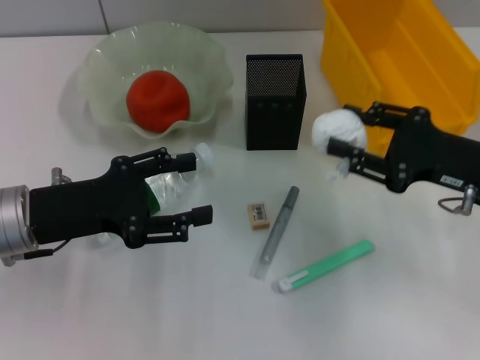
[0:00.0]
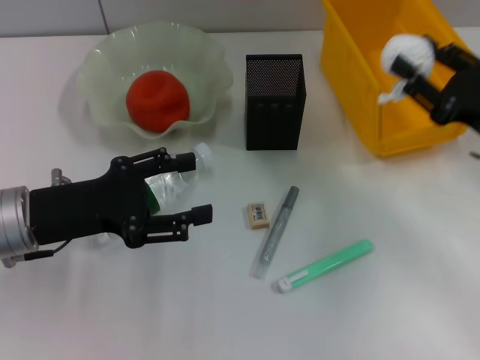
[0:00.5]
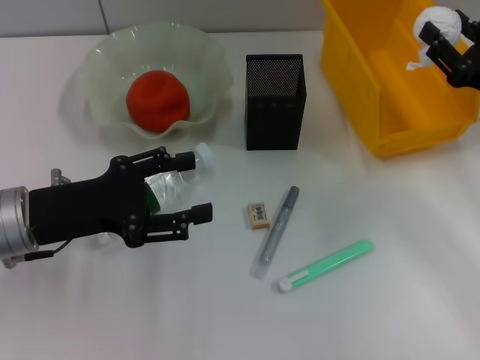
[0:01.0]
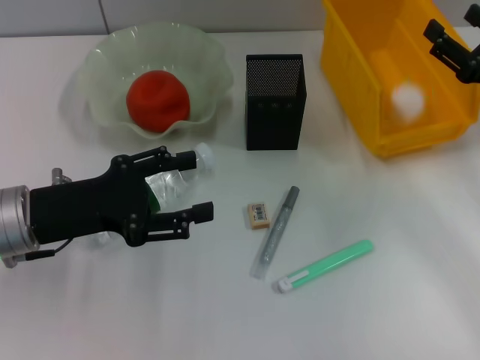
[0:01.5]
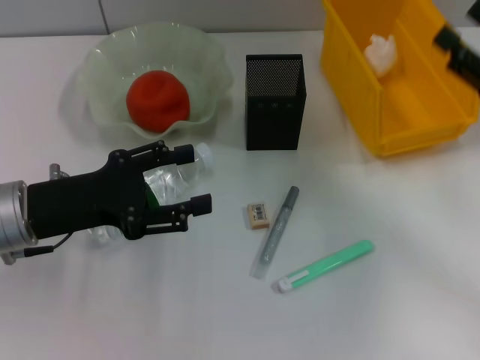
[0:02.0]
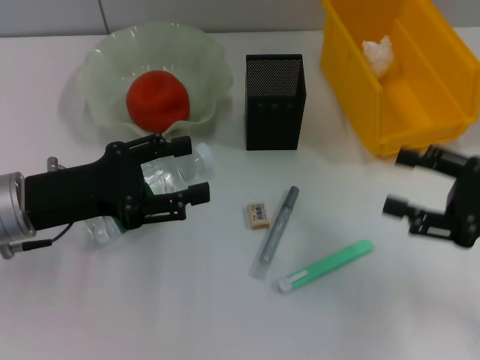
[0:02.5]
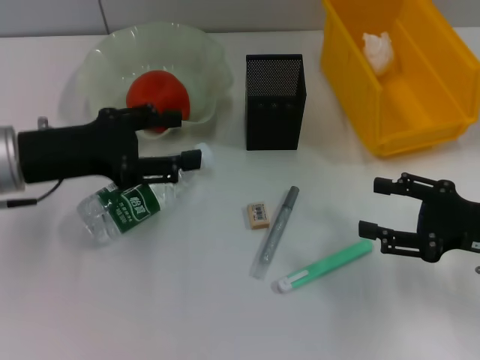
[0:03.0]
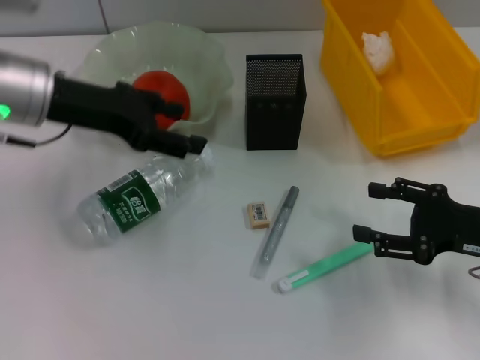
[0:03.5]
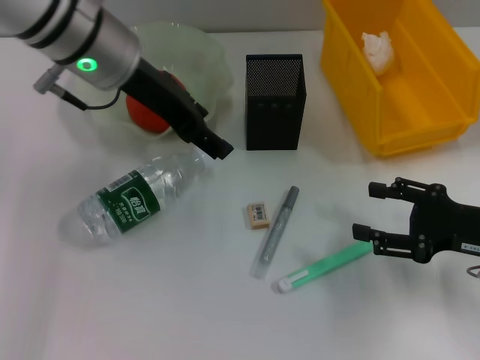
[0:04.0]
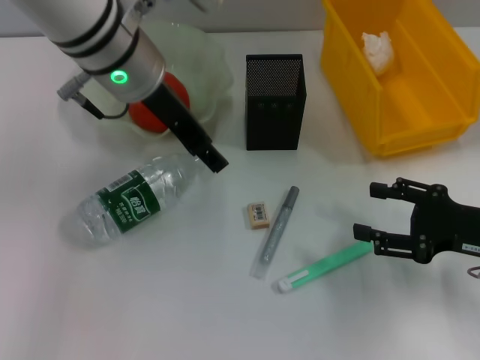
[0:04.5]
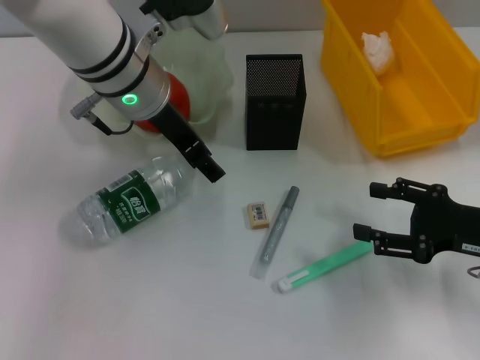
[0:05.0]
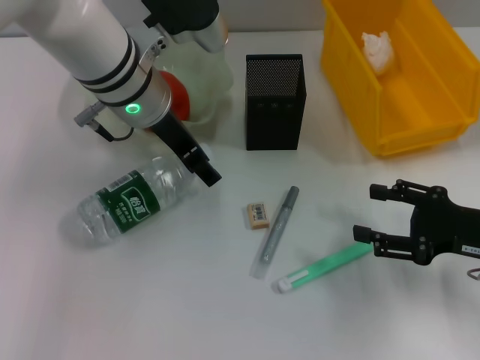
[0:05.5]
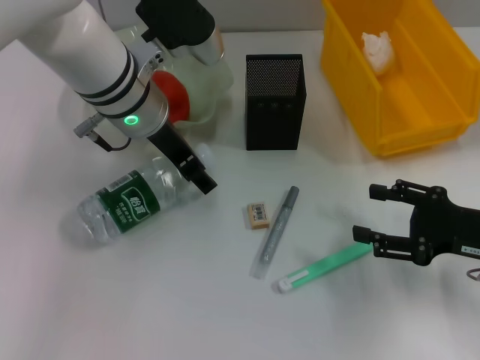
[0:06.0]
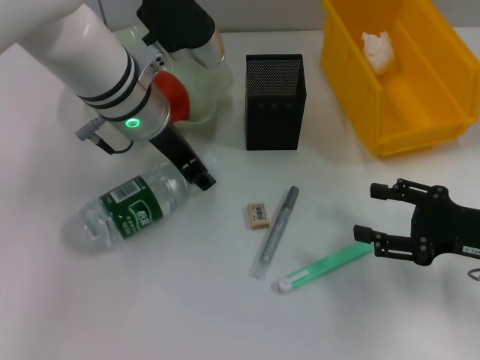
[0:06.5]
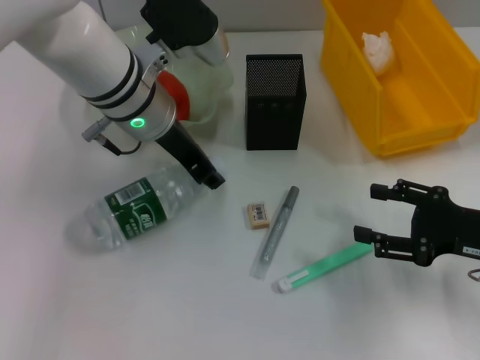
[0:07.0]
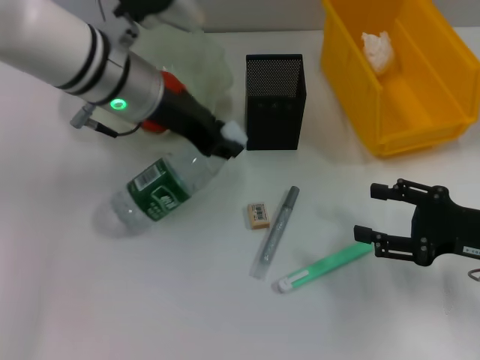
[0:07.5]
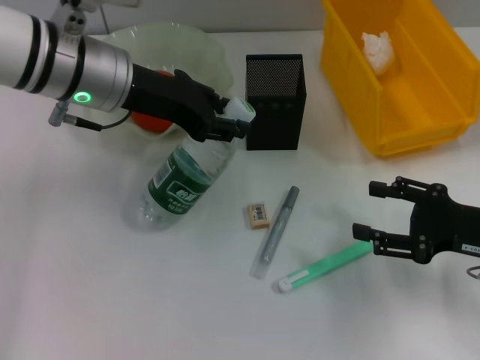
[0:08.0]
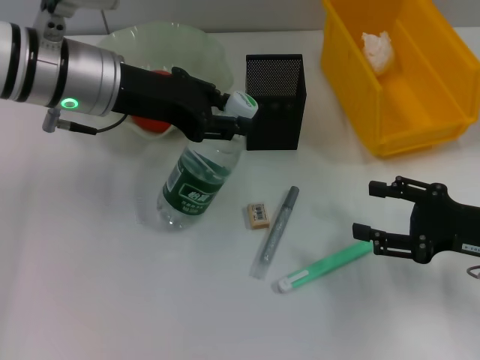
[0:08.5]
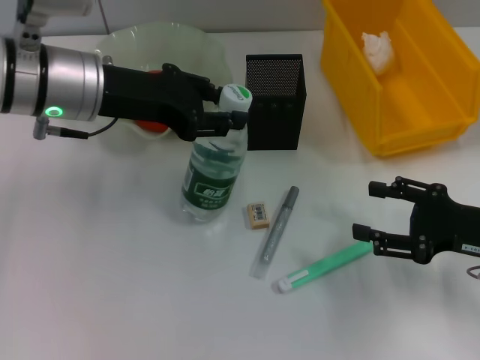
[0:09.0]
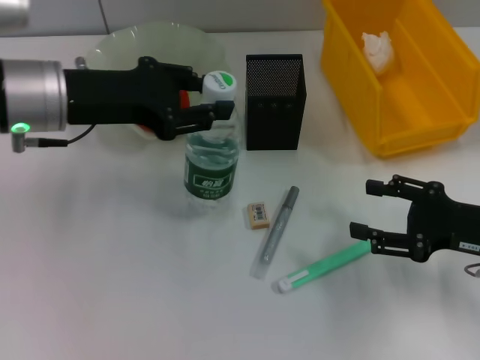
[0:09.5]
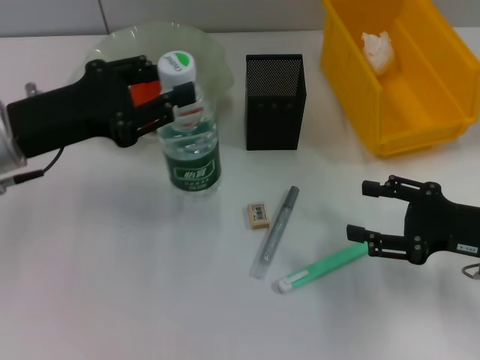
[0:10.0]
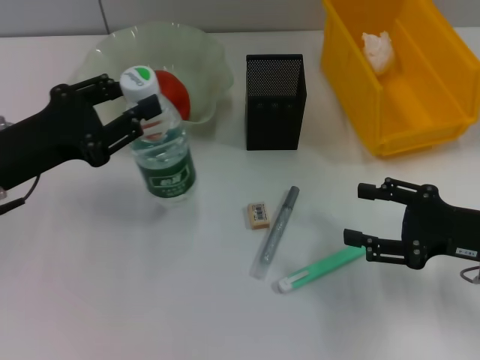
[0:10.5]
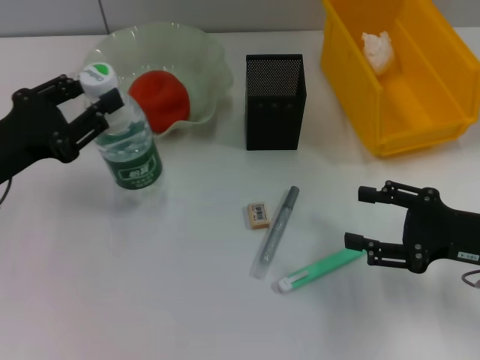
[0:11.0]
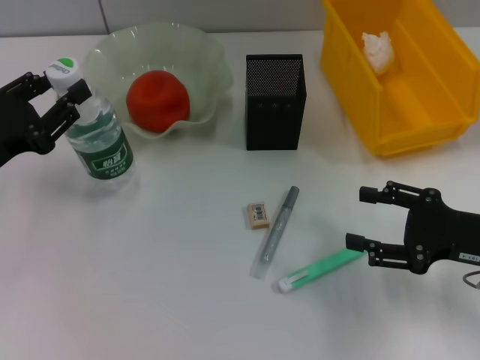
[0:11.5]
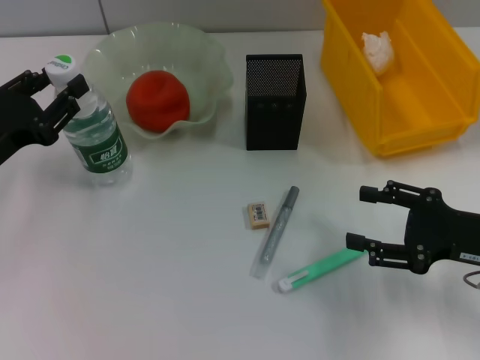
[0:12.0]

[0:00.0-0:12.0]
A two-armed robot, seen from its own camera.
Step, 0.0 to 1.5 s: Place the paper ball into the trash can with the right hand.
Step, 2.0 to 6.5 s: Grab the water bottle with the left hand.
0.0 to 2.0 s: The right gripper moves to the right, about 5 cm, and opens its fingers.
2.0 to 4.0 s: The right gripper travels downward by roughly 5 cm. Meanwhile the left gripper is displaced upward, forward and to the right by about 20 cm.
4.0 to 6.0 s: The left gripper travels downward by about 5 cm.
6.0 to 8.0 s: The left gripper moves approximately 5 cm, and closes up.
8.0 to 10.0 s: The left gripper travels to the left and backward by some 10 cm.
10.0 to 12.0 s: The left gripper shifts about 10 cm to the left and downward.

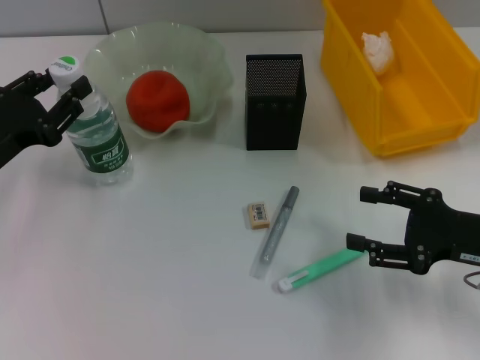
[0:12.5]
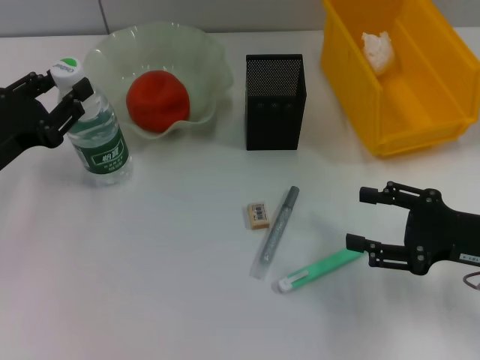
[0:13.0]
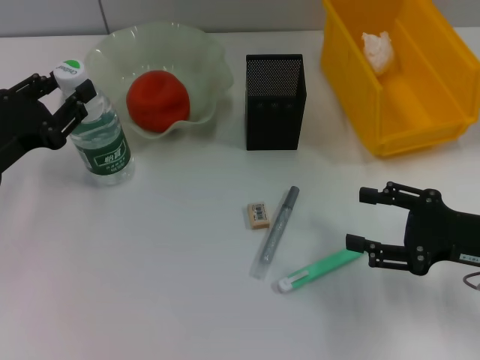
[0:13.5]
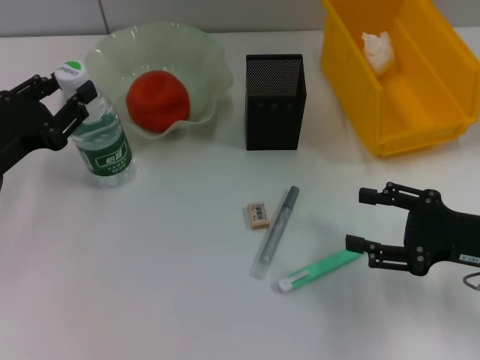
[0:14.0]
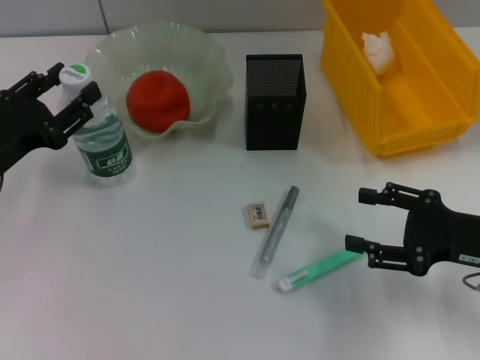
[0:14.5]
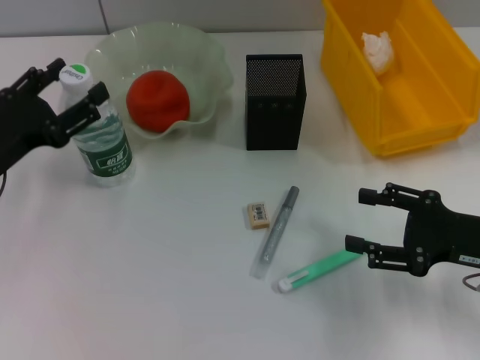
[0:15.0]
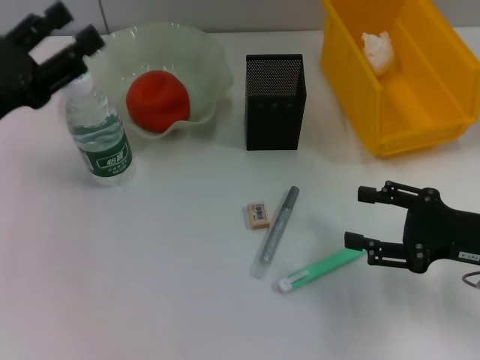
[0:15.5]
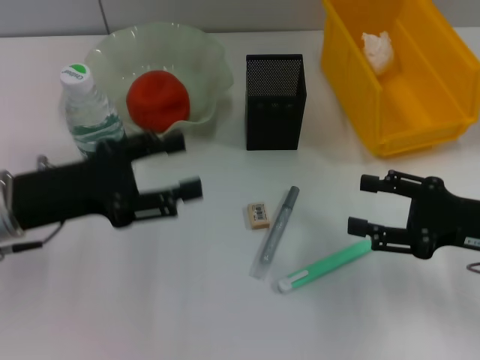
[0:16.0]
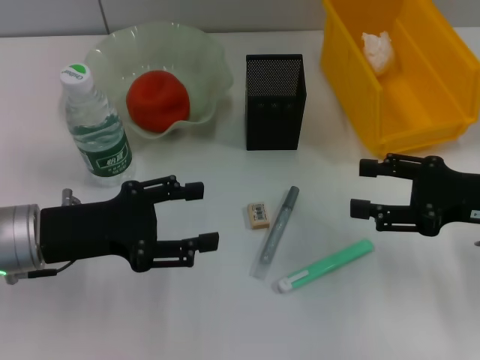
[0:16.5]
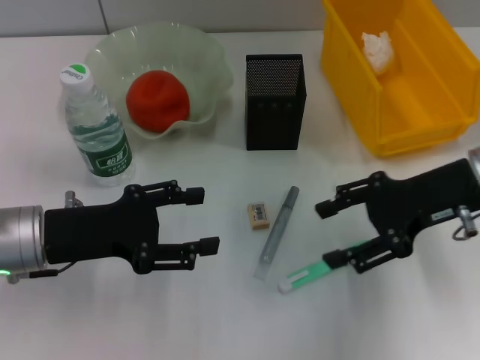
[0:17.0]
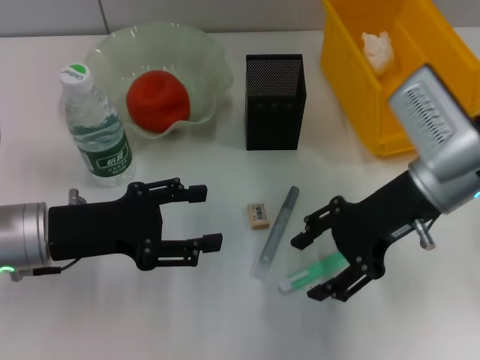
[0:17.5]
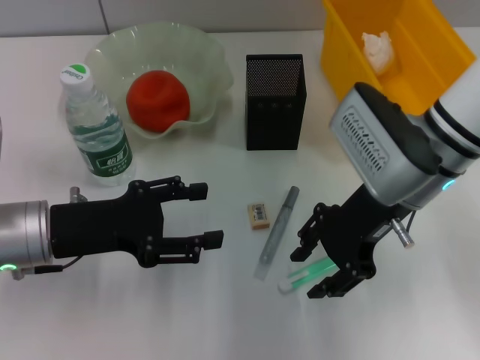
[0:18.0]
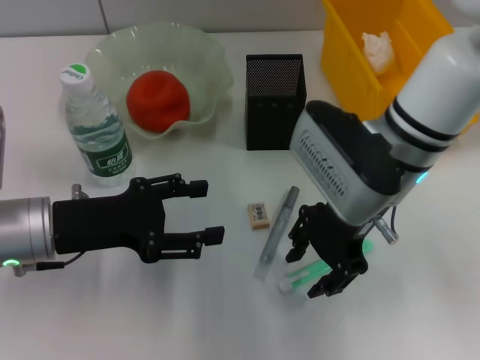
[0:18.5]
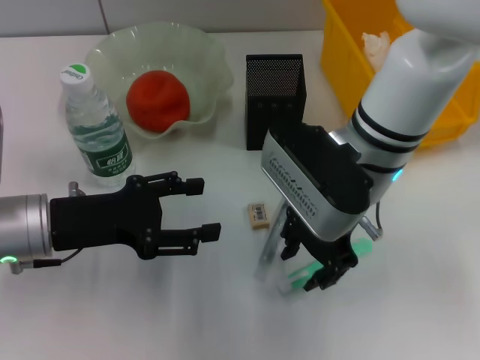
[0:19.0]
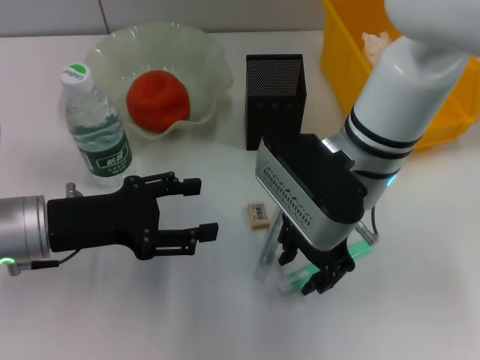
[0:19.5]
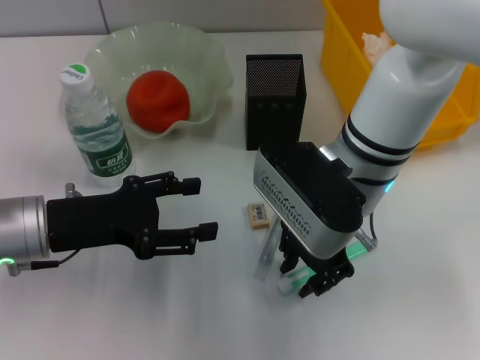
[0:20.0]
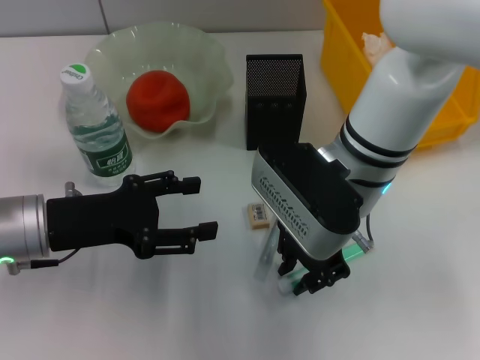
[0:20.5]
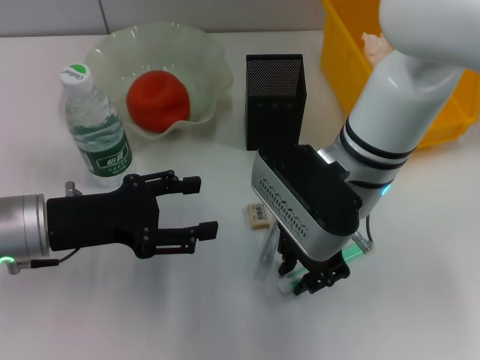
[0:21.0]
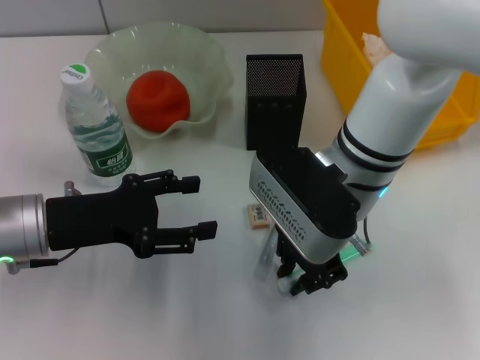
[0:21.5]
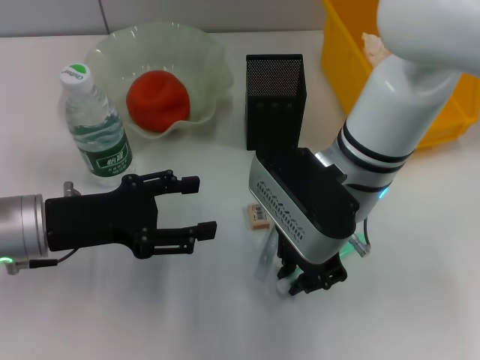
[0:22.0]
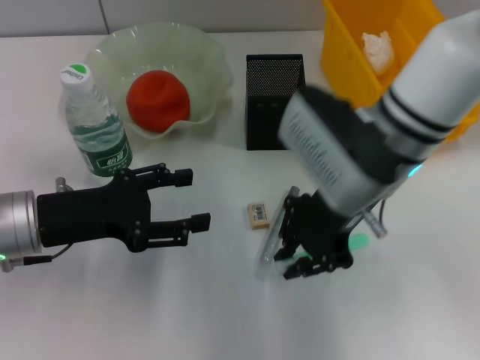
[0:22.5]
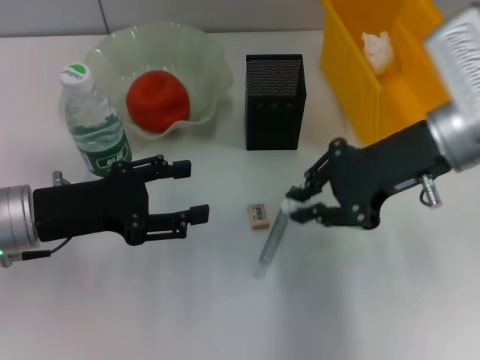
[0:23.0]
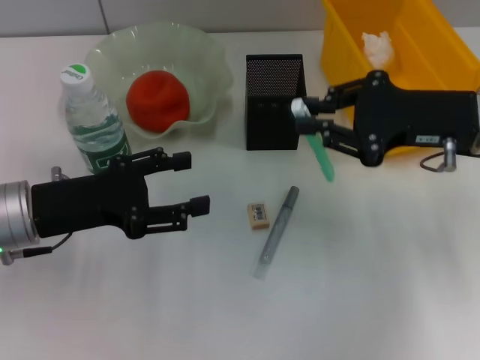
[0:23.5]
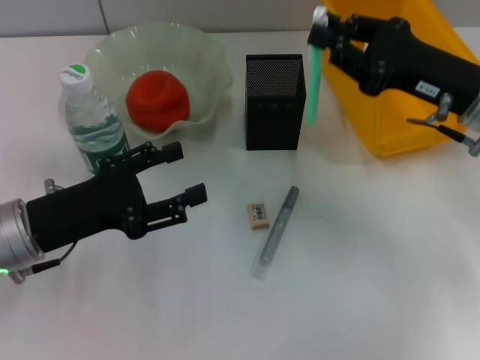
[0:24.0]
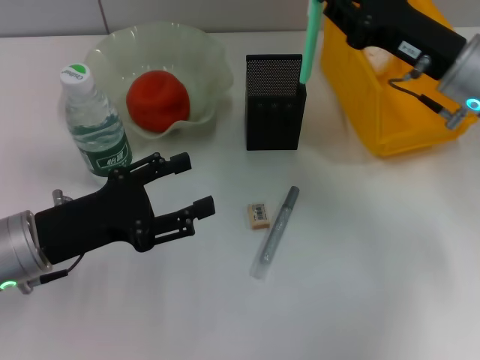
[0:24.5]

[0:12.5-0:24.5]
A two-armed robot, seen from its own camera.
Step, 12.5 to 15.0 s: Place the water bottle on the table with the left hand.
Step, 15.5 to 22.0 s: Grab the blue utility knife with the right hand.
12.5 to 14.5 s: Both grippers stay put.
14.5 to 16.5 s: The left gripper travels to the right by some 5 cm, and opens up.
16.5 to 18.5 s: The right gripper moves to the left, about 20 cm.
22.5 to 24.5 s: The right gripper moves to the right, about 10 cm.

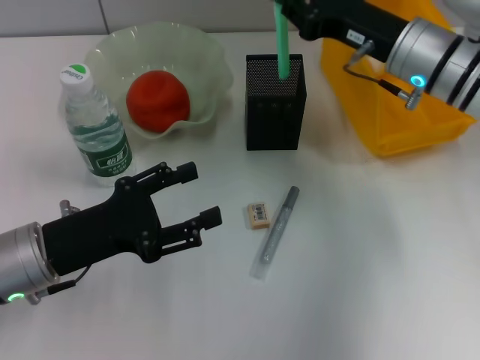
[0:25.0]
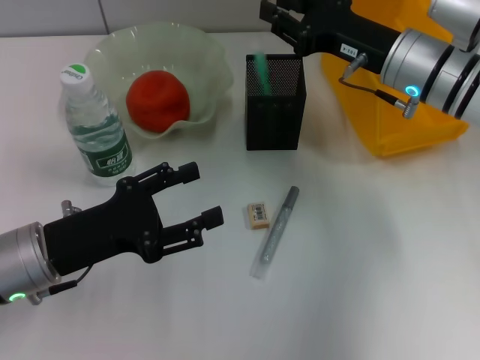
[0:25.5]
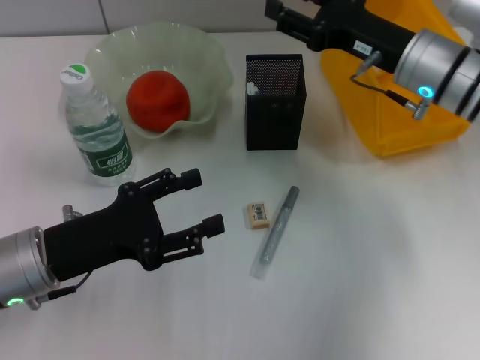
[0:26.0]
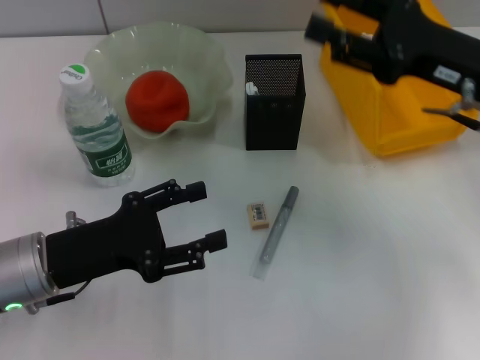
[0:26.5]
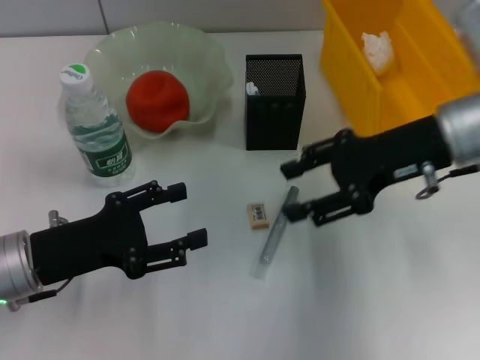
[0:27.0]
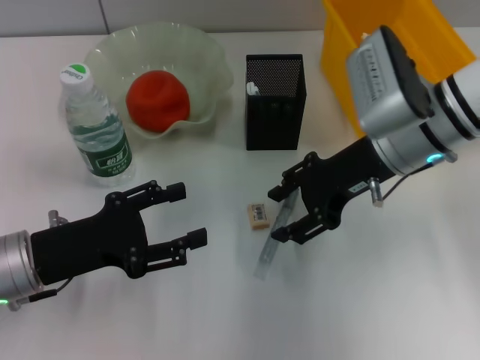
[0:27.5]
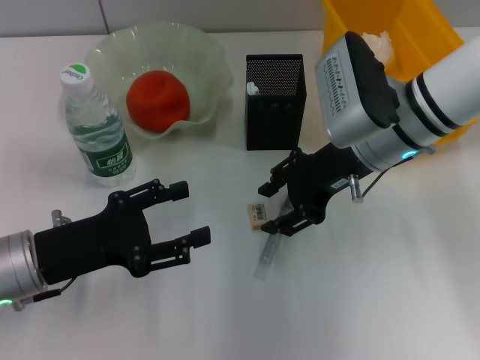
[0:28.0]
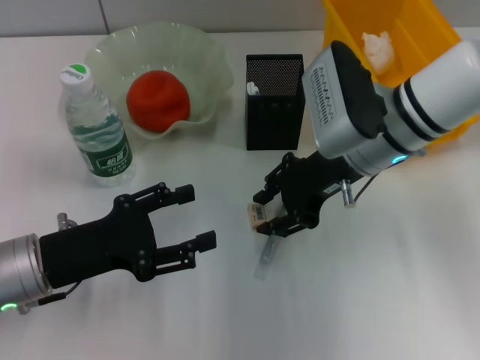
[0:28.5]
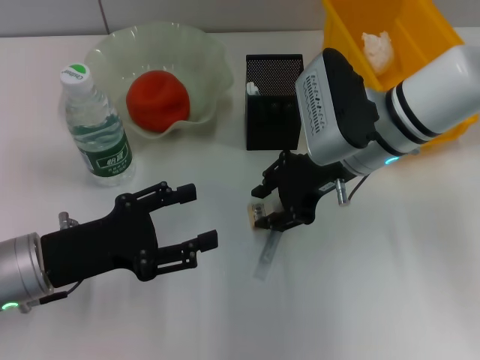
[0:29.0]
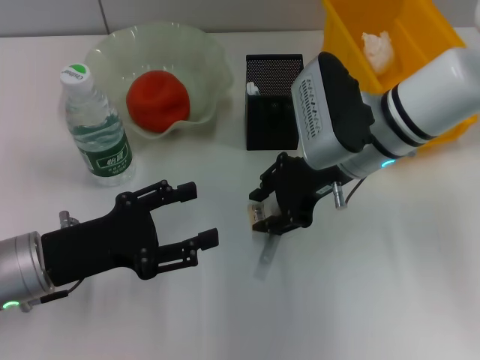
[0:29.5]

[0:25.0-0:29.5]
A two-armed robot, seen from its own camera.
25.0 to 27.0 s: The right gripper travels backward by approximately 5 cm, and opens up.
27.0 to 29.5 s: The right gripper is displaced to the left by about 10 cm.
